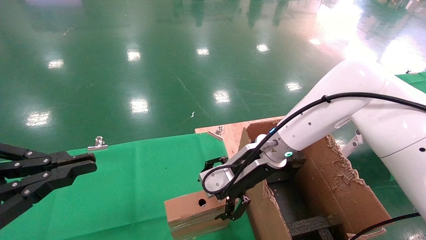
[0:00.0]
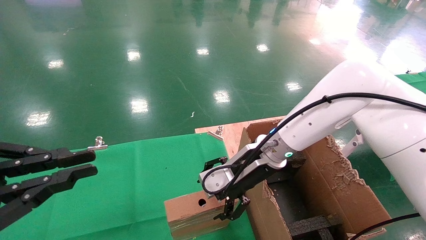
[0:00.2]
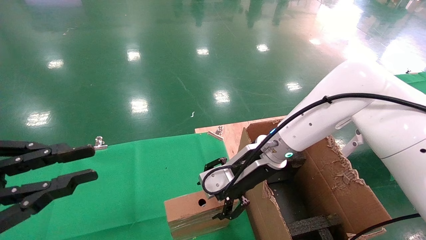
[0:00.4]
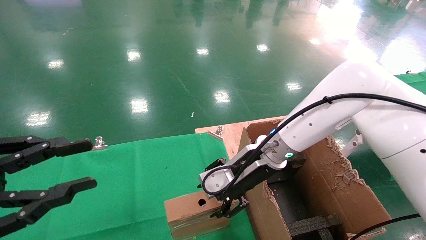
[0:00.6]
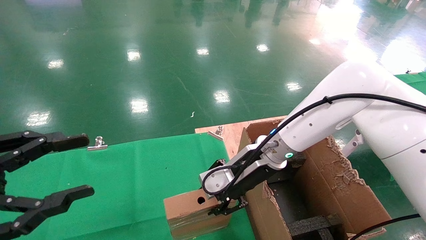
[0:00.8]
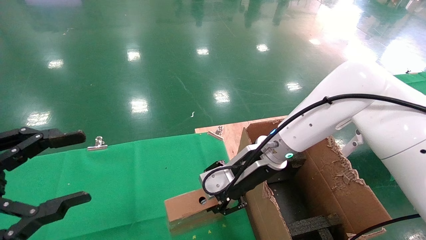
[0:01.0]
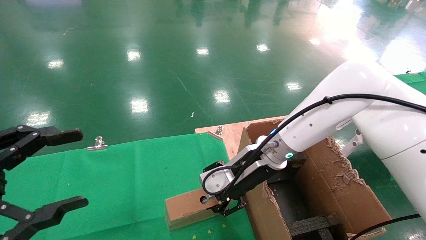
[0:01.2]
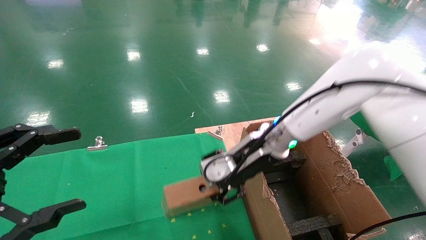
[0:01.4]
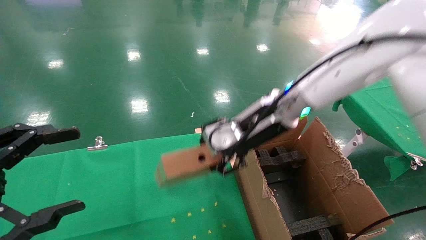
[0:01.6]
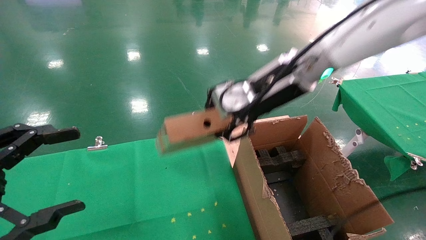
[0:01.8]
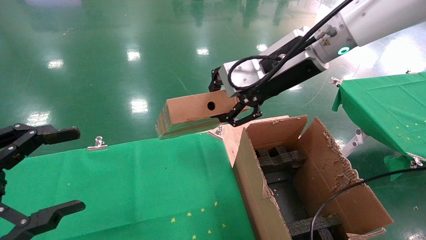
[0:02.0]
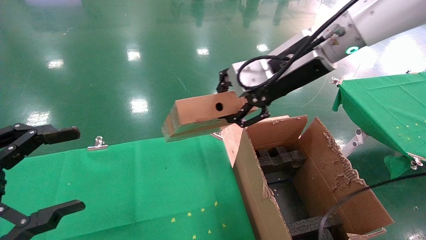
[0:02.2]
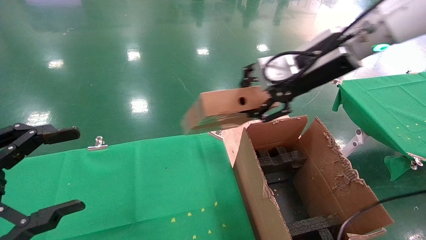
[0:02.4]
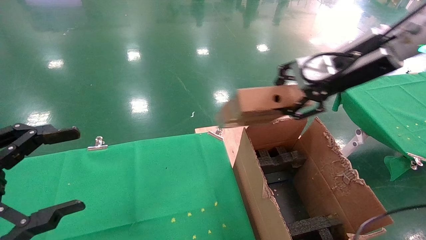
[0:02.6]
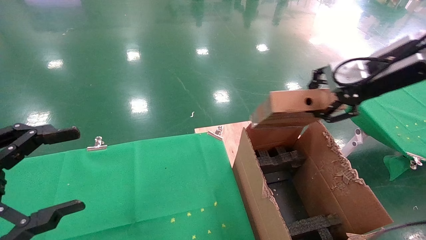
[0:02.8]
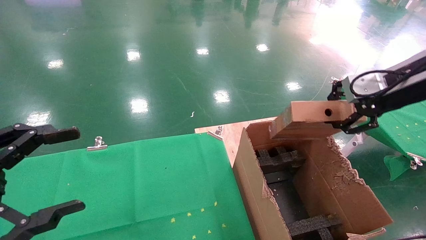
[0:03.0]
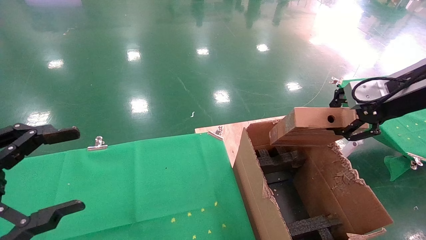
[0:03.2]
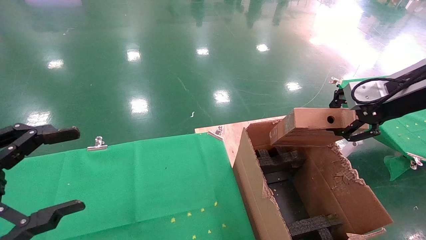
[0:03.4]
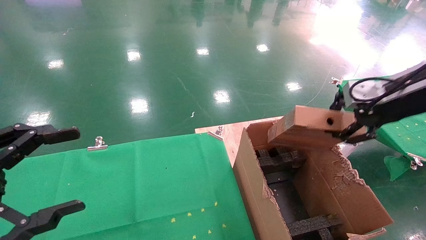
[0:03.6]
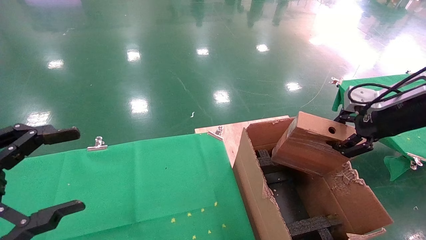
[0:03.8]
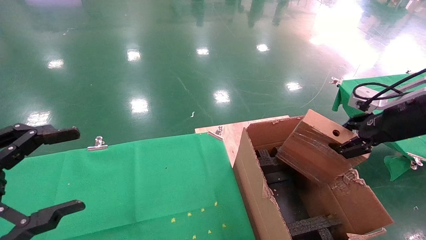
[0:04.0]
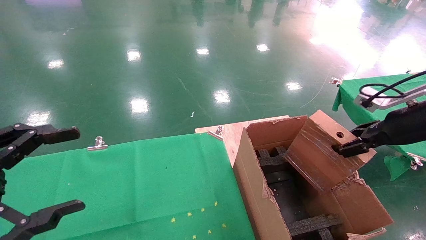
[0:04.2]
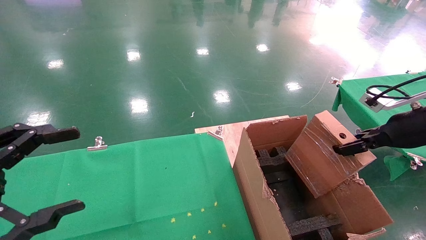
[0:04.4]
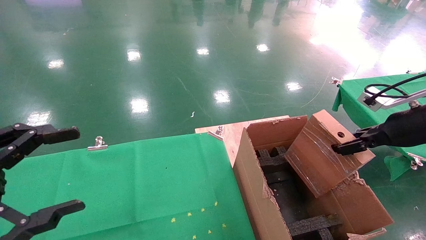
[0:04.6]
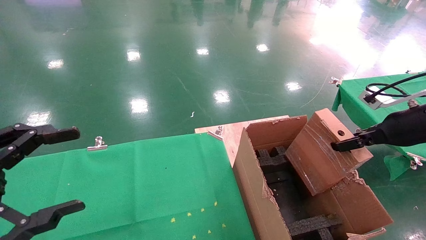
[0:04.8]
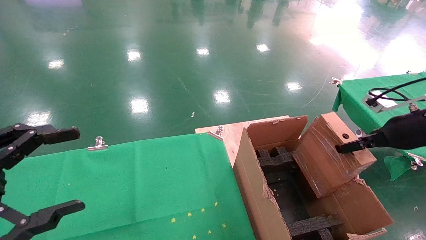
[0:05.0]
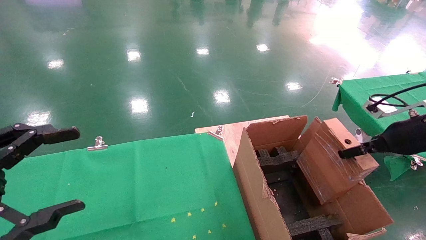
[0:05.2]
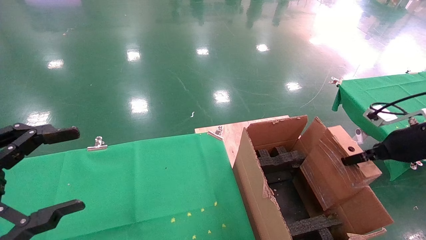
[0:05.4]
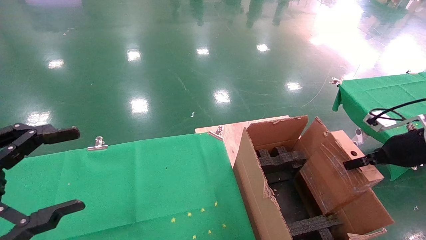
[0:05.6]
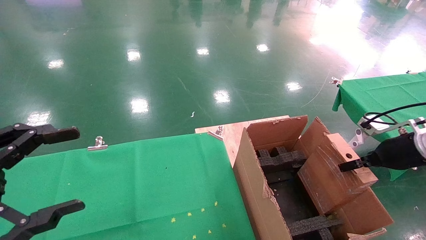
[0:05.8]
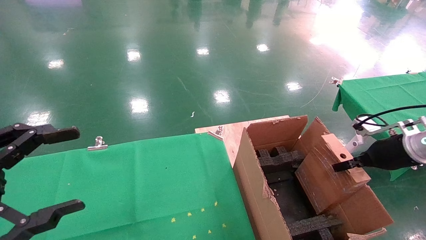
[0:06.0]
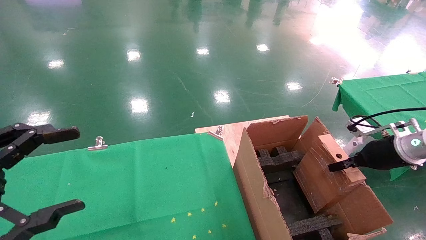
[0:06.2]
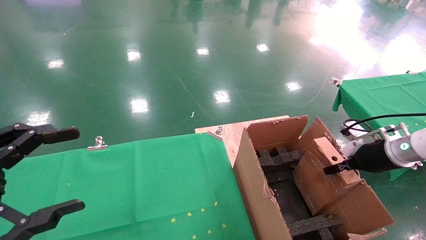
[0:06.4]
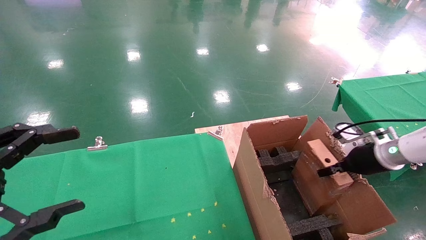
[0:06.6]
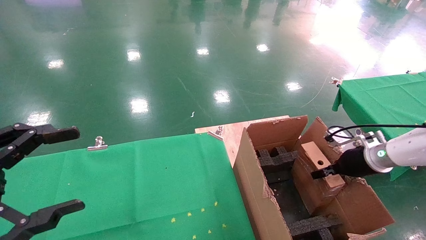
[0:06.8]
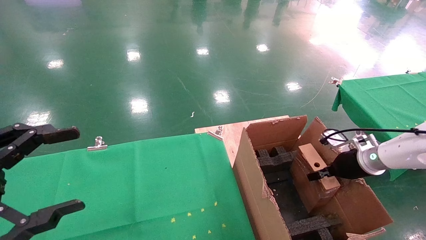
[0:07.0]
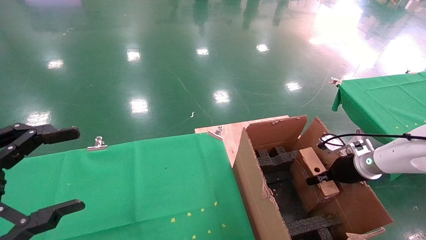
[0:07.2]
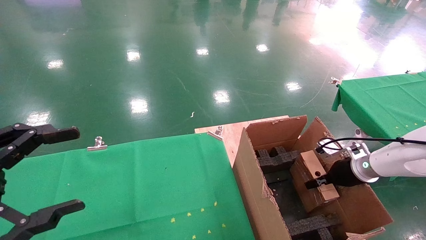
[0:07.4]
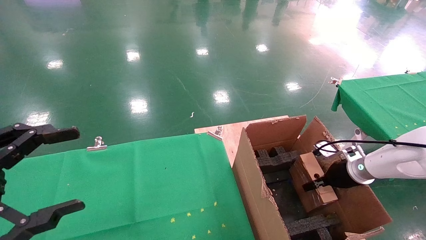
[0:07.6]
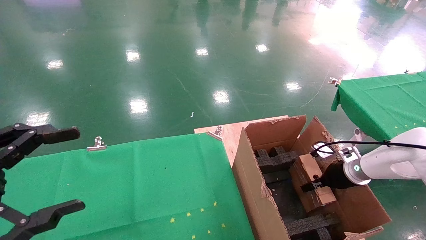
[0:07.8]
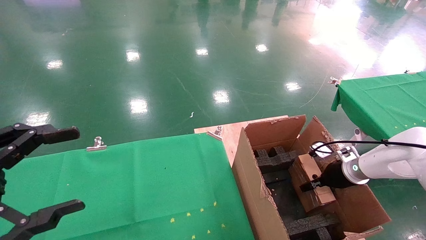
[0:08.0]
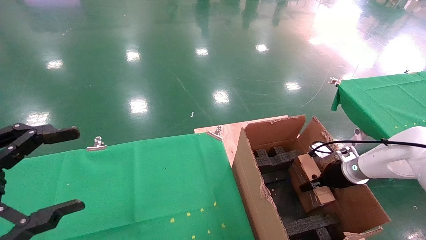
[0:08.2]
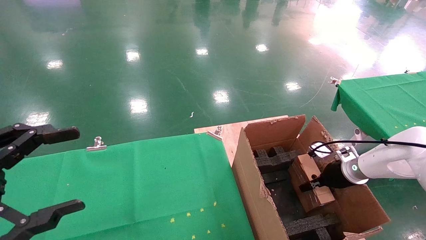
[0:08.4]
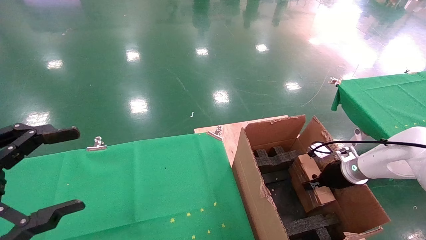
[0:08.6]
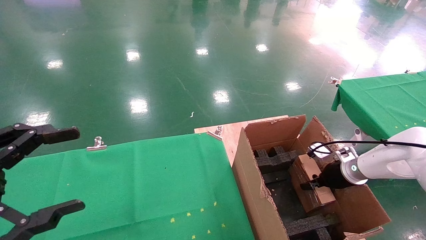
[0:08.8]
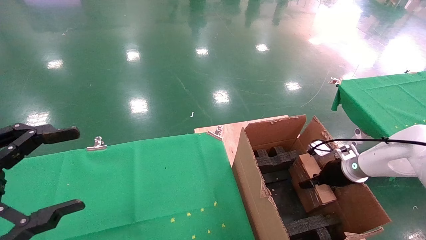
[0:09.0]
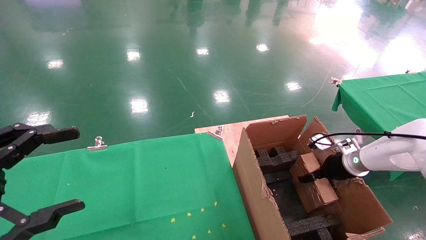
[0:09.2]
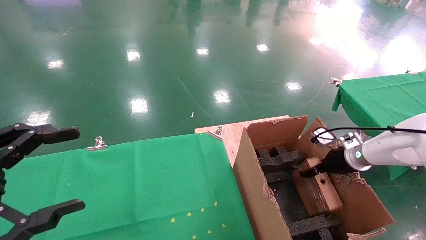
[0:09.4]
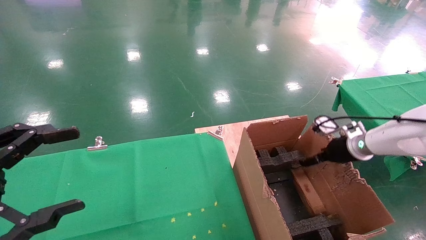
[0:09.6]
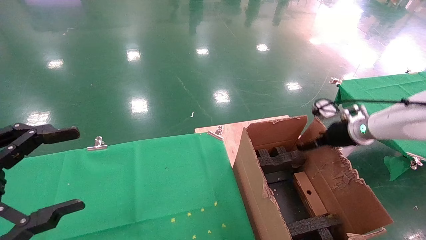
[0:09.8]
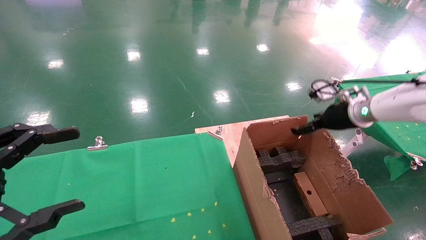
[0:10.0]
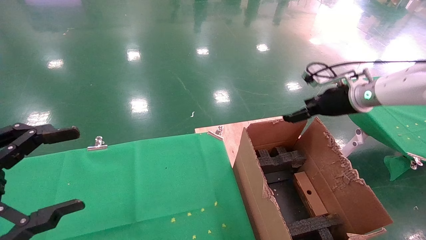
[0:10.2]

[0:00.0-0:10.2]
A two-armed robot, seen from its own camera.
Task of the whole recording: using a robotic arm to pick up a cardboard box and palace it the carton.
Step, 0:01.4 to 0:09.6: Place the mouse and the power cord paper box into the container.
0:00.0 to 0:01.4: The left gripper opens its fingers; the right gripper closes.
0:01.4 to 0:03.0: The right gripper heads to the right and upward, covering some 25 cm.
0:03.0 to 0:04.4: The right gripper heads downward and to the right, covering some 10 cm.
0:04.4 to 0:05.8: The right gripper is displaced downward by approximately 10 cm.
0:05.8 to 0:07.2: The right gripper moves downward, forward and to the left, about 15 cm.
0:07.2 to 0:08.8: The grippers stay close to where they were, moving slightly.
0:08.8 to 0:10.2: The right gripper moves upward, roughly 20 cm, and opens its fingers.

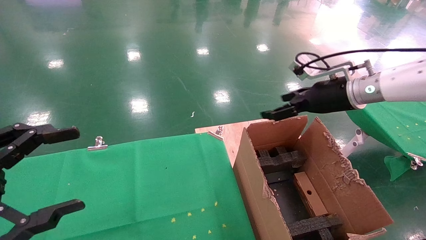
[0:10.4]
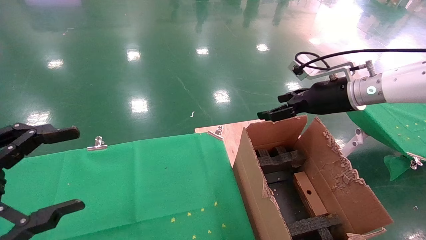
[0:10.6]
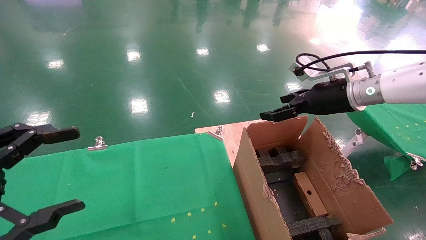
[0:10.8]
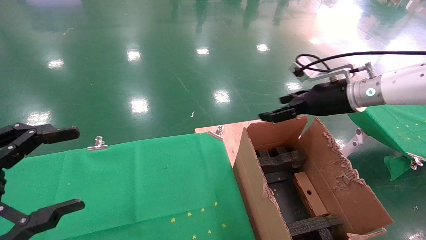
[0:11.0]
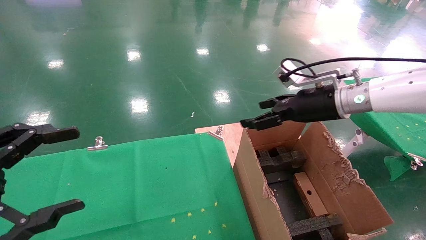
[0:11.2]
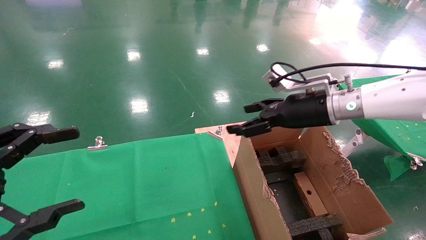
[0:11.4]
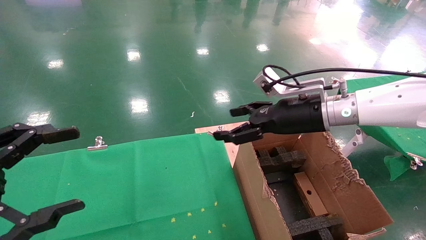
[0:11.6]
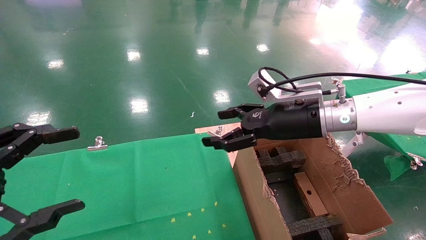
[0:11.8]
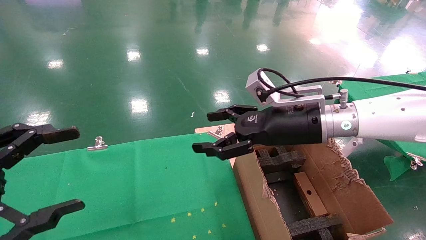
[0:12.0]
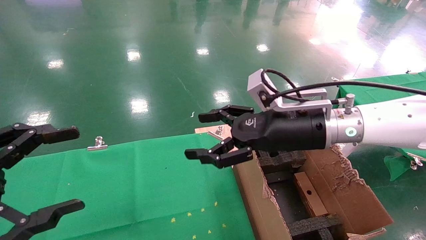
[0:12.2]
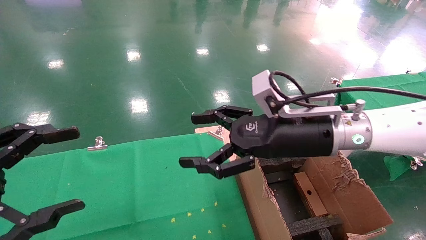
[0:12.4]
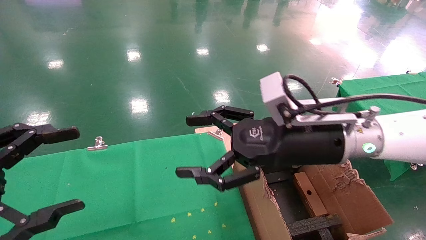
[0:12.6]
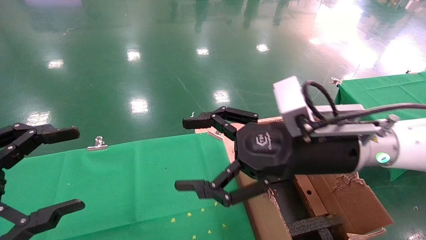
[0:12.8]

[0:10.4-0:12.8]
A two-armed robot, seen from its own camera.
Task of the whole recording: using a robotic arm to pick up a cardboard box and palace it the carton.
0:10.4 to 0:11.6: The right gripper travels to the left by approximately 10 cm.
0:11.6 to 0:12.8: The right gripper goes approximately 10 cm backward and to the left.

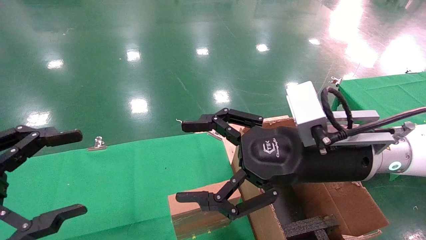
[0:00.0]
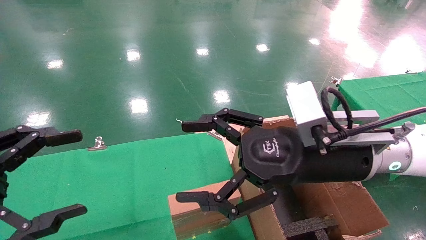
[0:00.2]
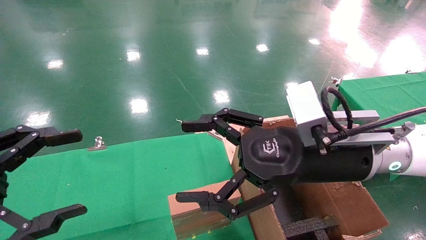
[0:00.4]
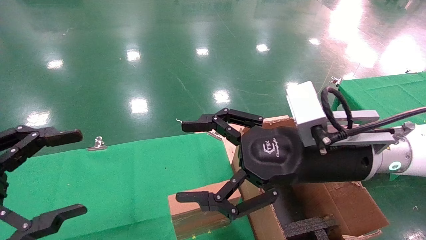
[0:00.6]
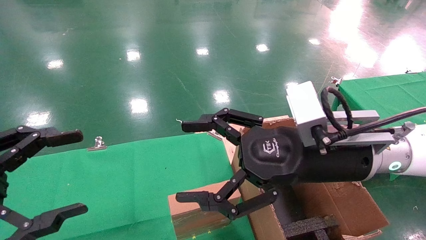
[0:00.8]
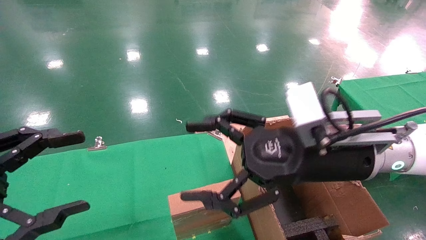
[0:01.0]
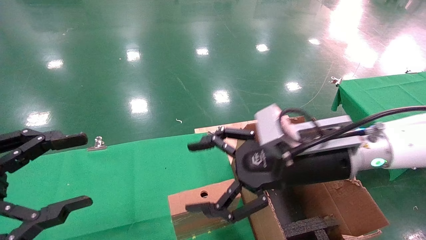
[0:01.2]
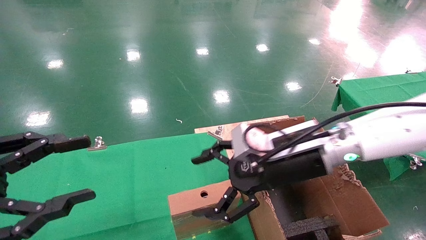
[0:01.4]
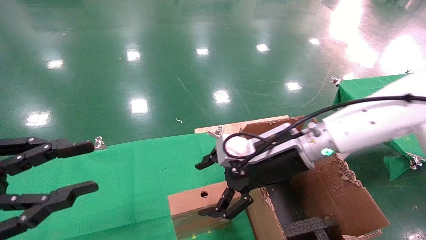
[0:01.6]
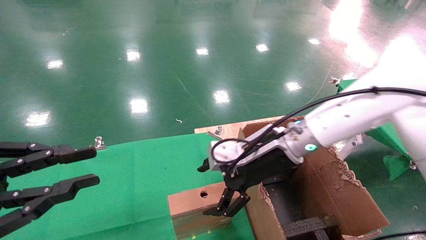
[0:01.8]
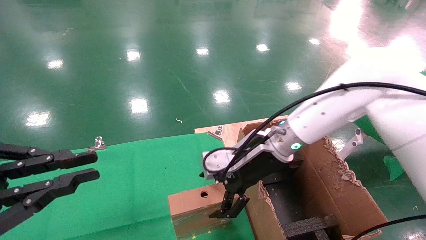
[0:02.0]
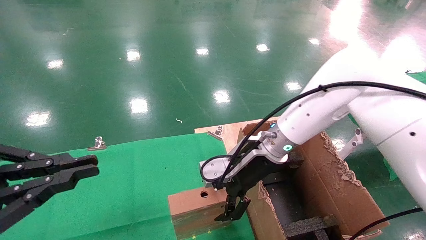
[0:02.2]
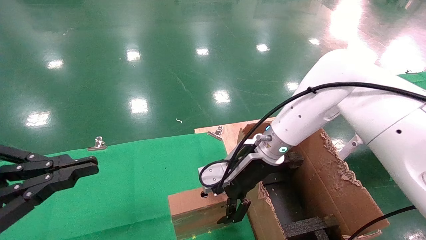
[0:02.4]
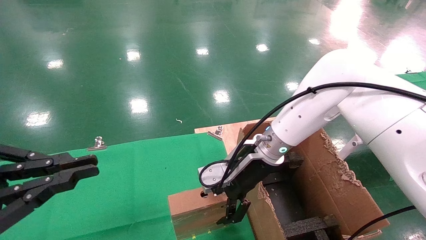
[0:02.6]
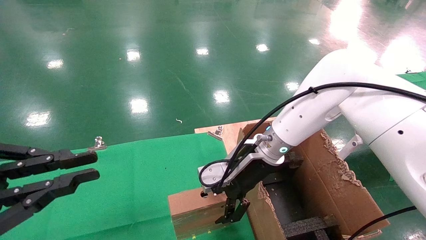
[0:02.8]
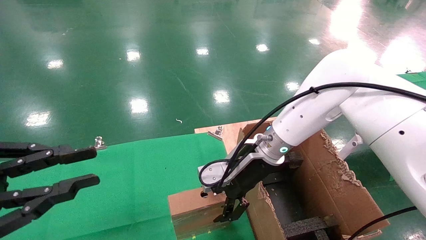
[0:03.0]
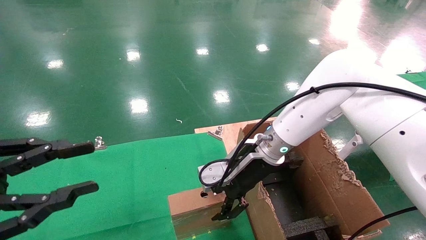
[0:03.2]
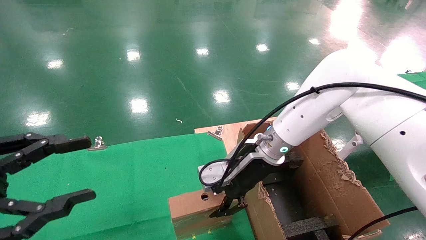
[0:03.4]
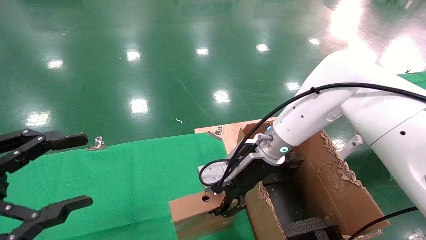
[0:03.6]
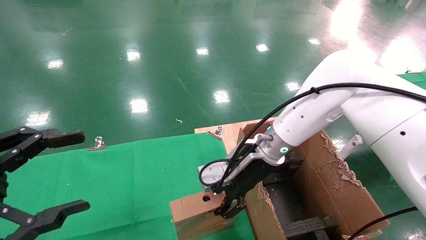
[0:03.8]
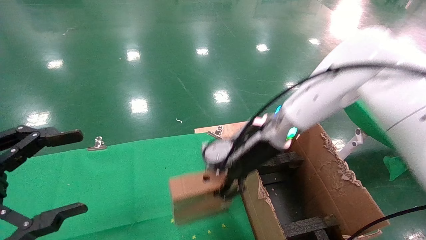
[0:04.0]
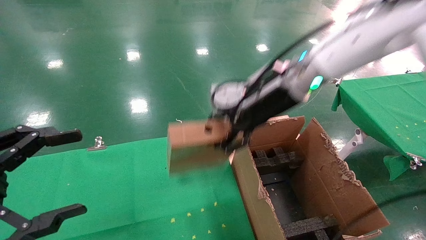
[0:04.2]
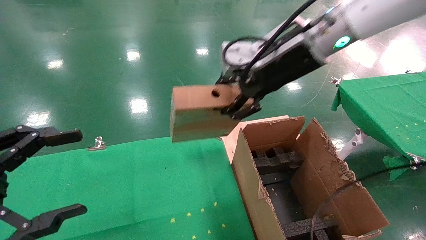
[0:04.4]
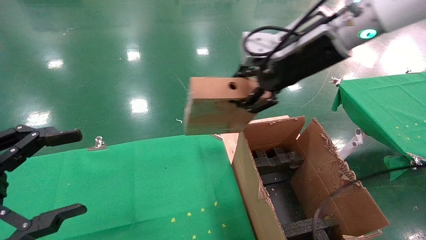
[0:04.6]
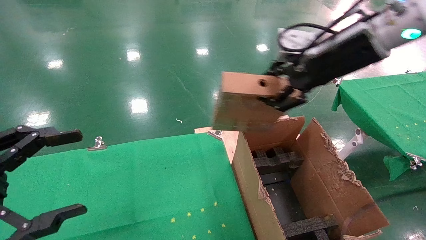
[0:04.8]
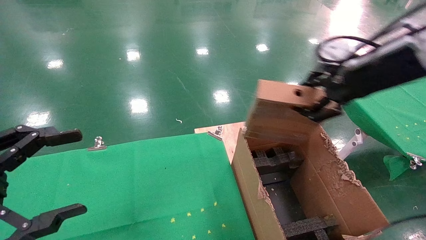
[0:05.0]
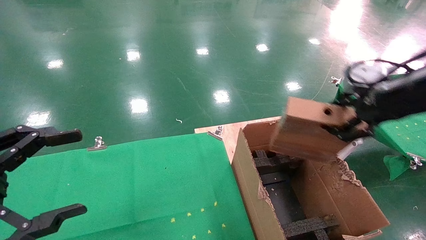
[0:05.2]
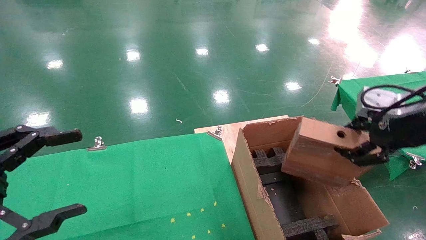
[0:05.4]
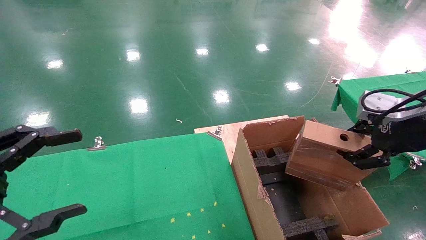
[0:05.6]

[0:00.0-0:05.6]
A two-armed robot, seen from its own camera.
Task of the whole recording: using a robotic arm to pick up a cardboard box and palace it the carton.
Step, 0:01.4 to 0:03.6: Pick up the mouse and the power cord paper box.
0:00.0 to 0:01.4: The right gripper goes about 5 cm forward.
0:01.4 to 0:02.8: The right gripper shifts about 10 cm forward; the left gripper closes its fingers.
0:02.8 to 0:04.2: The left gripper opens its fingers; the right gripper travels upward by roughly 15 cm, and closes its fingers.
0:04.2 to 0:05.6: The right gripper is displaced to the right and backward by about 25 cm.
